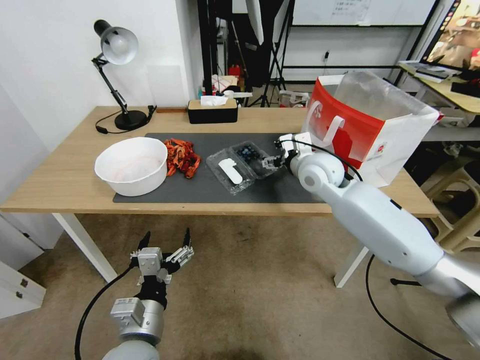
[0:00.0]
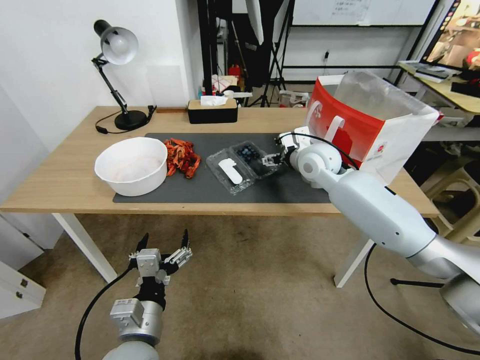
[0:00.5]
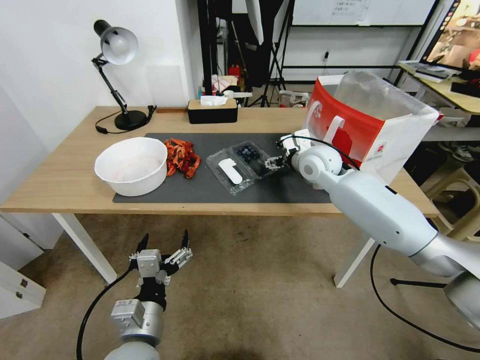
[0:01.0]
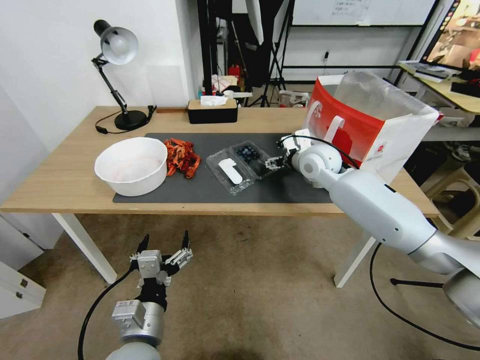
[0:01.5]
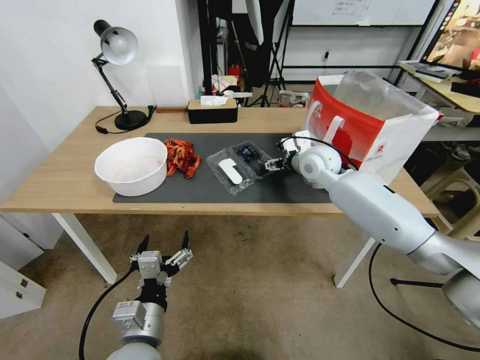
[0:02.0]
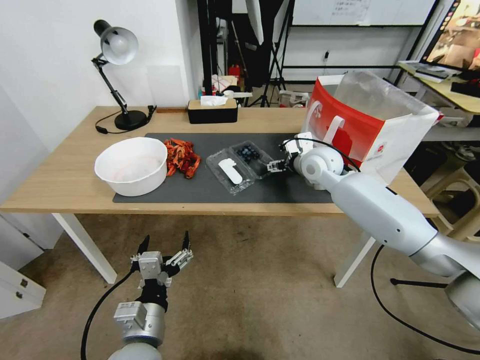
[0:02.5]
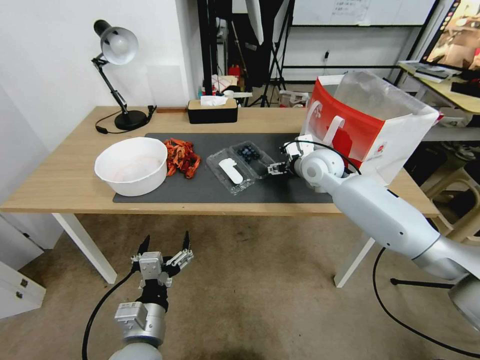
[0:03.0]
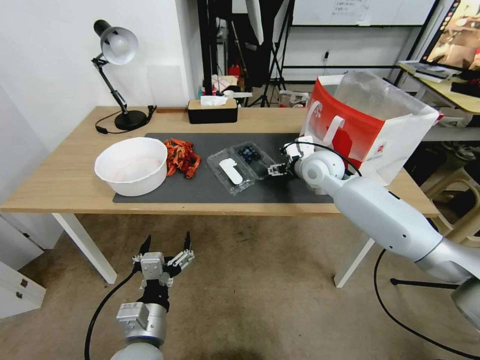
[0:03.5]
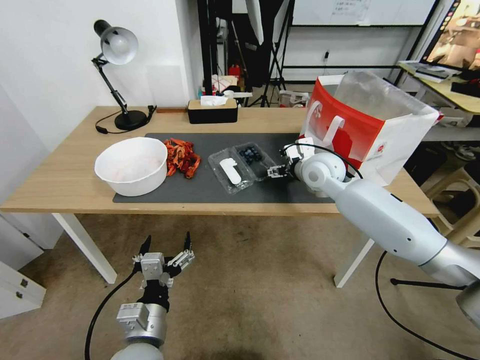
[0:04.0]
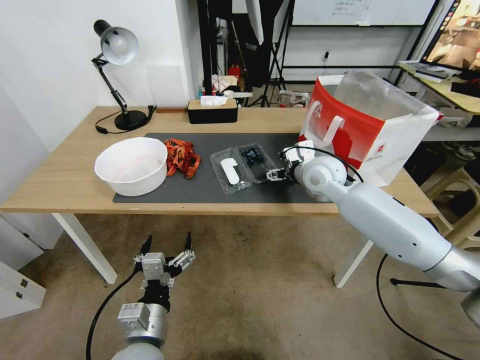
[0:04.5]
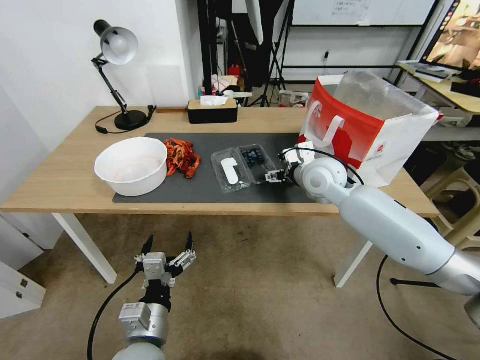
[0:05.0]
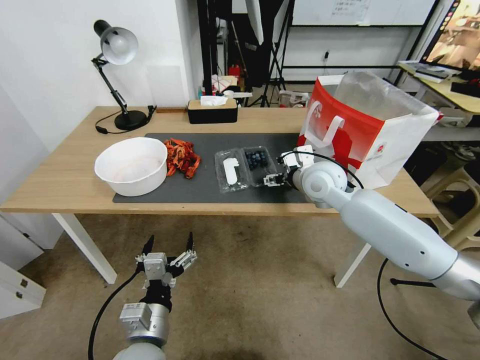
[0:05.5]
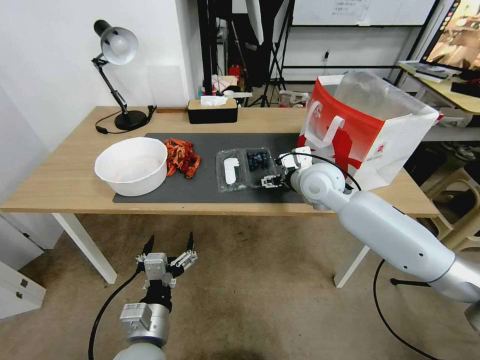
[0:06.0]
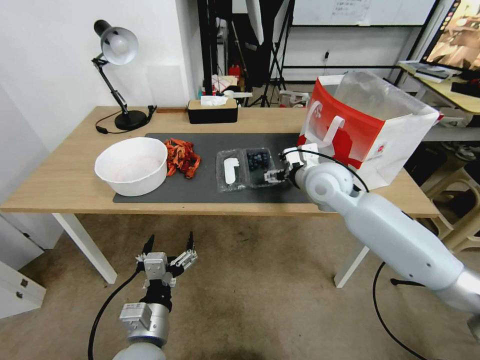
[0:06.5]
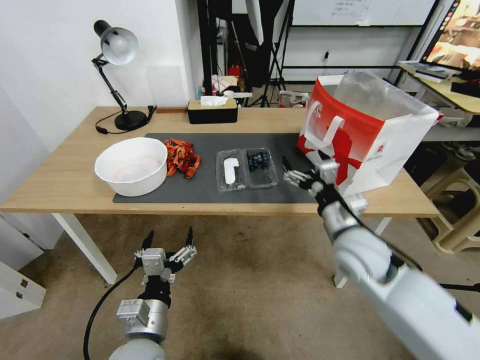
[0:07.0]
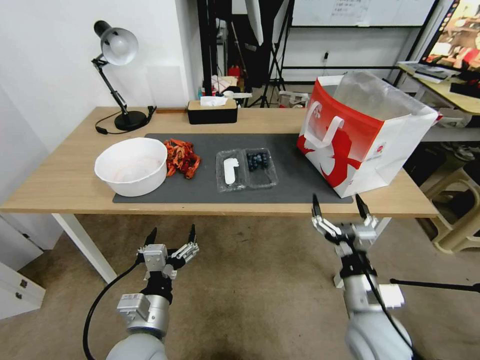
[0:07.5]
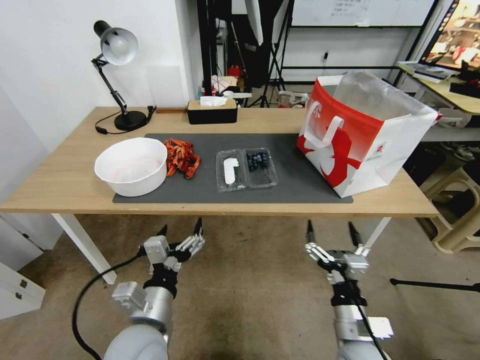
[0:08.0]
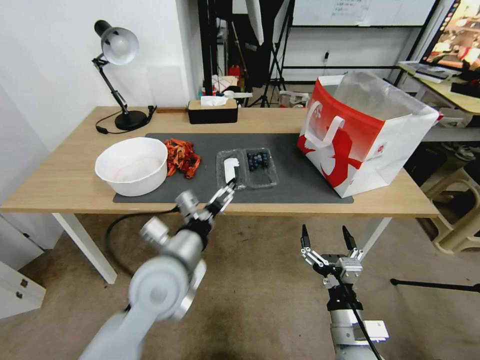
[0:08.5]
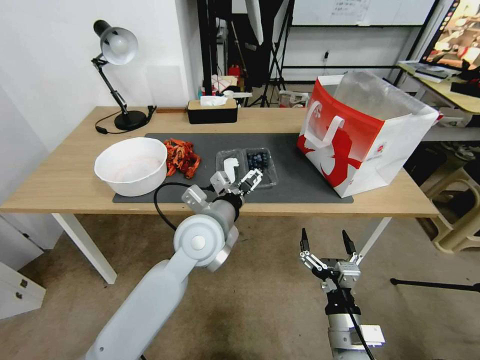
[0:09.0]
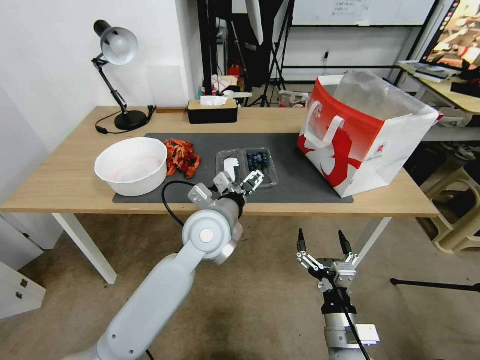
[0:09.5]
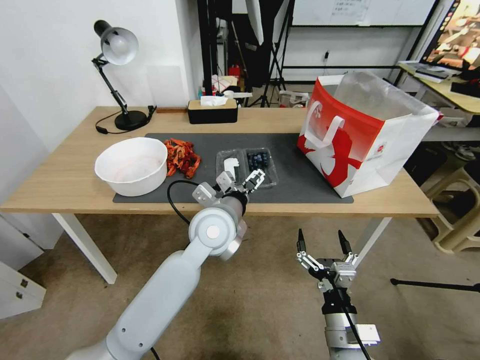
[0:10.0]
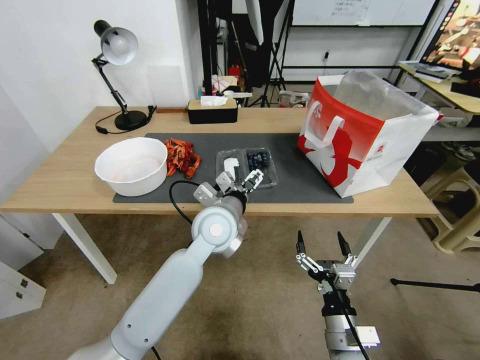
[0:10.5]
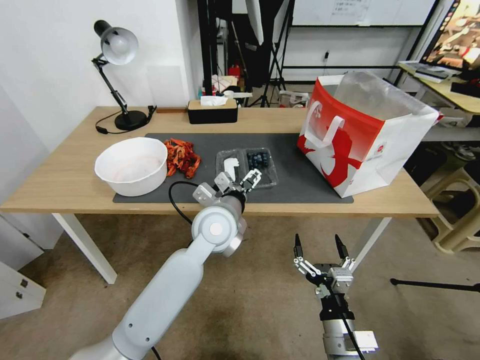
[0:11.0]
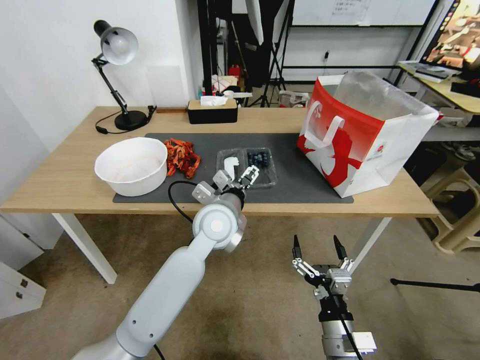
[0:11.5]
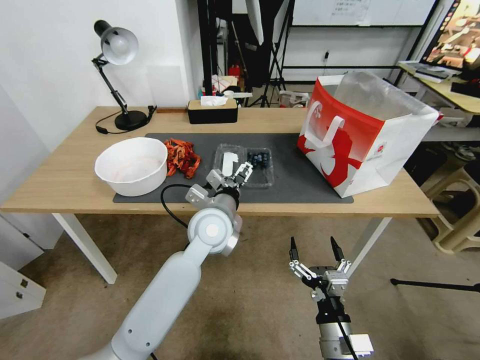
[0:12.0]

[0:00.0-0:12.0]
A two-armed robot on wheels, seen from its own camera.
Task of the whole recording: Close the takeout container lid, then place the container into the takeout bag.
0:00.0 to 0:02.0: The right gripper moves forward, some 5 cm.
0:02.0 to 0:04.0: The grippers move only a little.
0:04.0 to 0:06.0: There are only small adjustments of the grippers.
0:06.0 to 0:08.0: The right gripper is displaced backward and downward by about 35 cm.
0:08.0 to 0:10.0: The left gripper is displaced forward, to the right and upward by some 25 cm.
0:10.0 to 0:12.0: The grippers stay close to where they were, moving slightly.

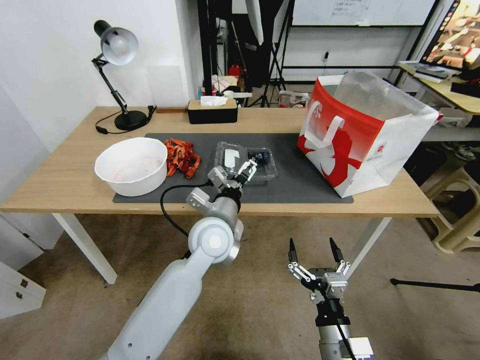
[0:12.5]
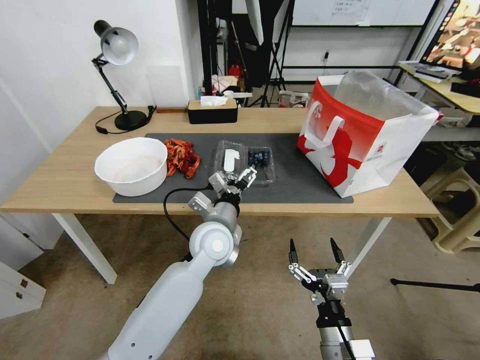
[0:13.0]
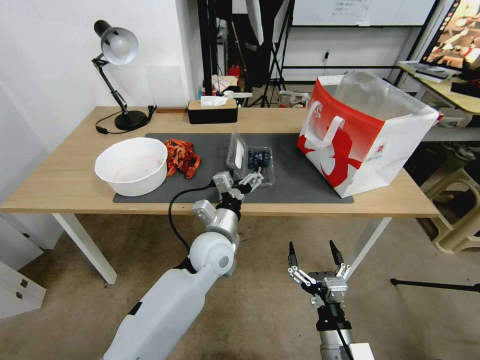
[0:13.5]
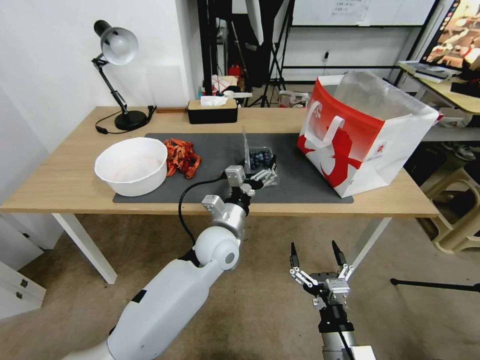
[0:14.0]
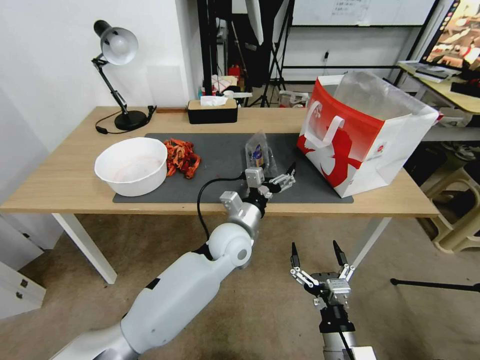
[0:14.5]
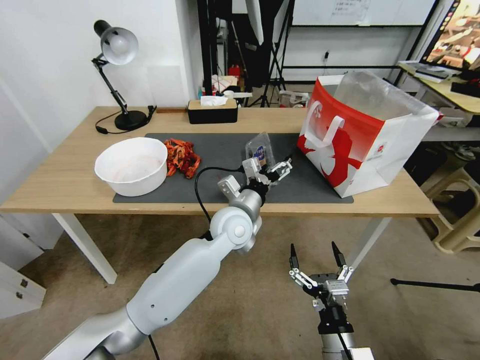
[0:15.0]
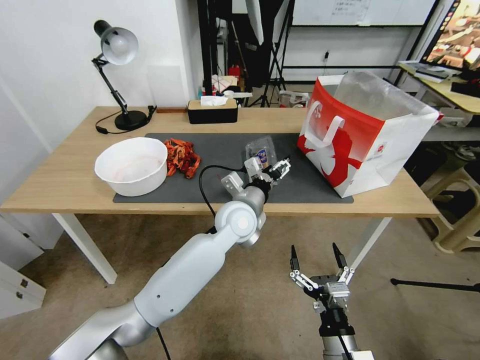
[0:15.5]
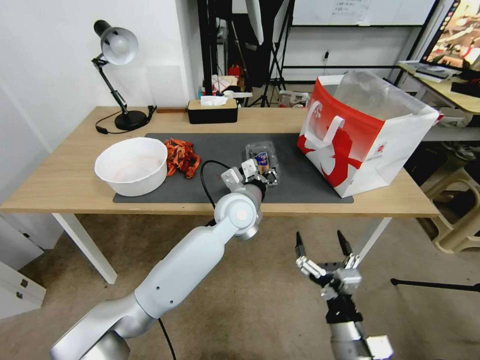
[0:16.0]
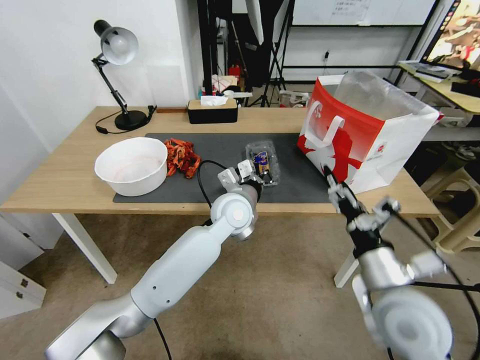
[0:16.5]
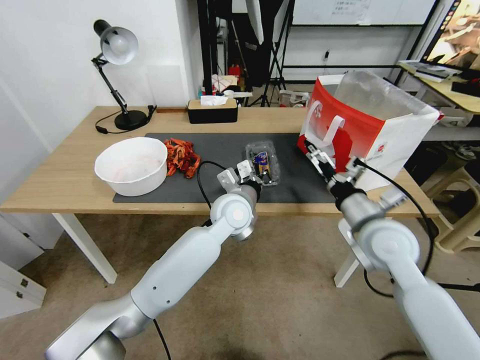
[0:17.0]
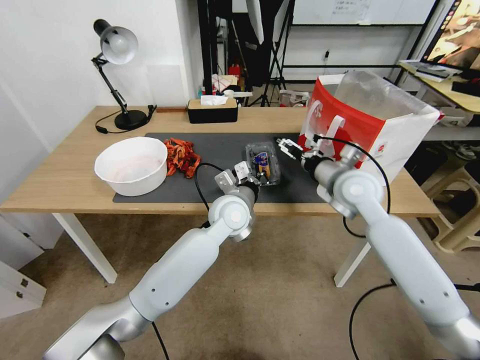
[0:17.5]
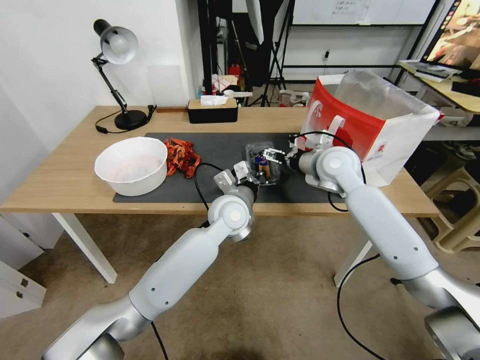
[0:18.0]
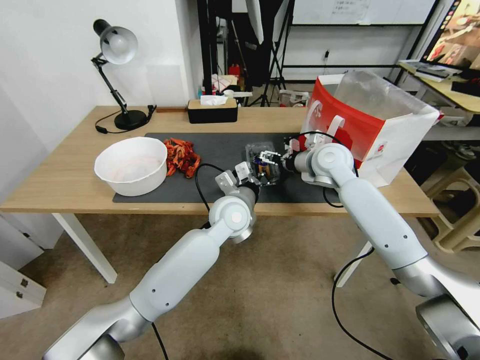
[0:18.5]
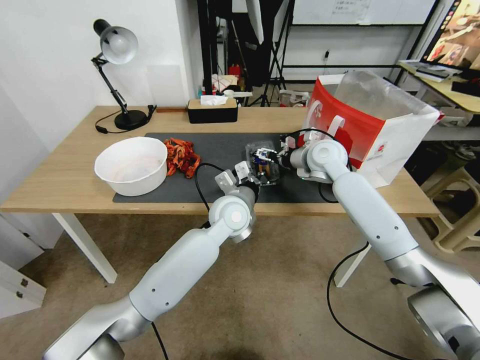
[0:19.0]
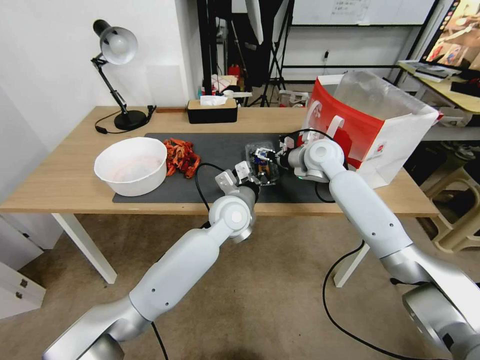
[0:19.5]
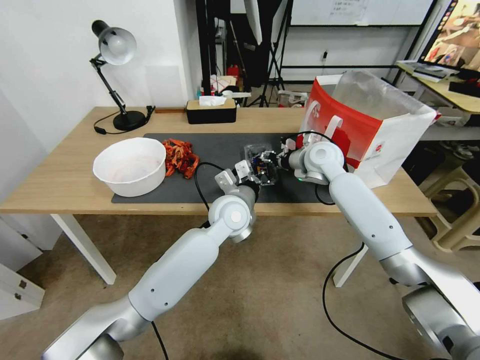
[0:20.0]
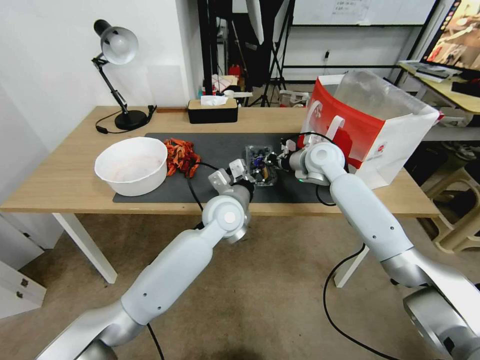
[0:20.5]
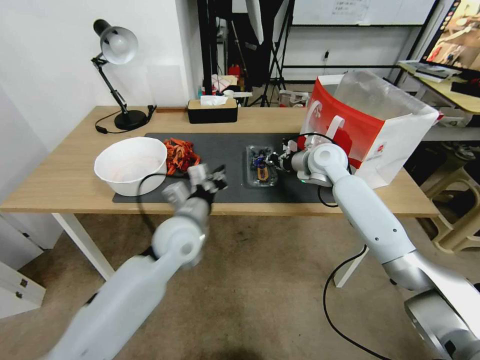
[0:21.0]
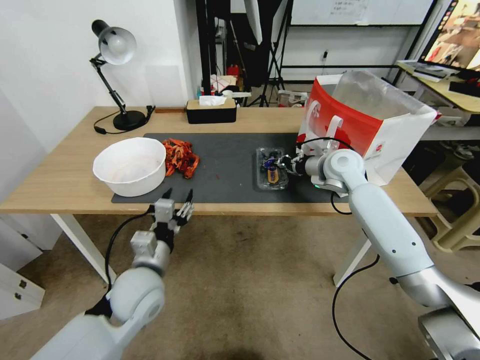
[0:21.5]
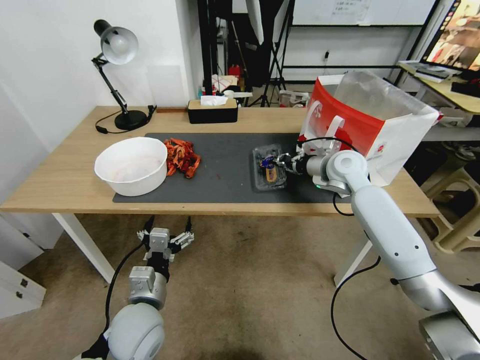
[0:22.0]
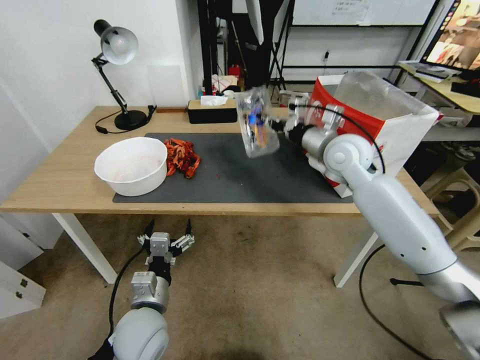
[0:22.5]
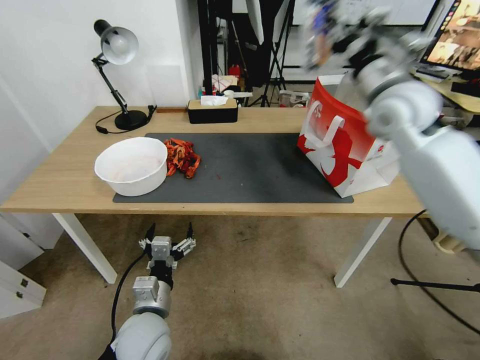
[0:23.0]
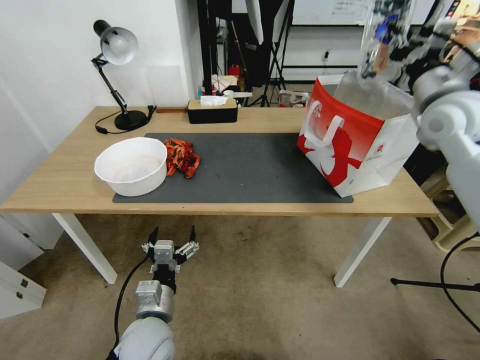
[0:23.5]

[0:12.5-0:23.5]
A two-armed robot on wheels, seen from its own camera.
Task of the whole recording: Close the takeout container lid, then place the container into the takeout bag.
0:12.5 to 0:14.5: The left gripper shifts by approximately 5 cm.
0:14.5 to 0:16.0: The left gripper goes roughly 5 cm upward and forward, and closes.
0:16.0 to 0:18.0: The right gripper heads forward and upward, covering approximately 40 cm.
0:18.0 to 0:20.0: The right gripper ends up roughly 5 cm from where it was, and closes.
0:20.0 to 0:21.5: The left gripper goes approximately 25 cm to the left and backward, and opens; the right gripper changes place by roughly 5 cm, and closes up.
0:21.5 to 0:23.5: The right gripper shifts approximately 25 cm upward and to the right. Meanwhile the left gripper travels backward and downward by roughly 10 cm, and opens its fingers.

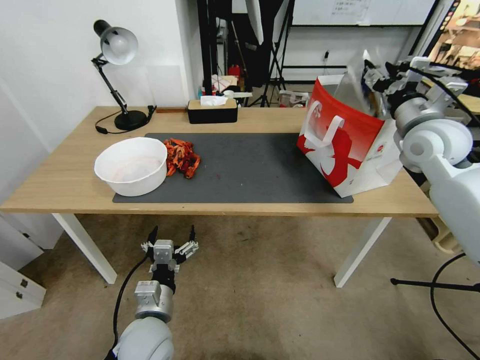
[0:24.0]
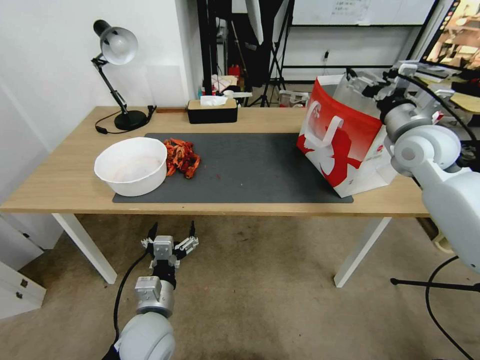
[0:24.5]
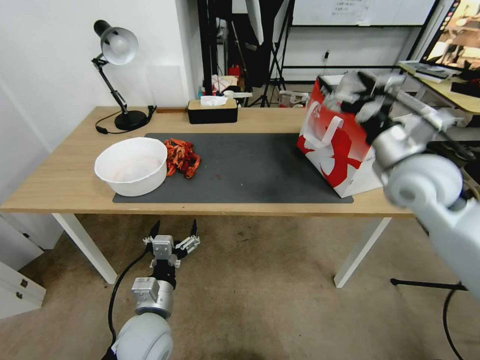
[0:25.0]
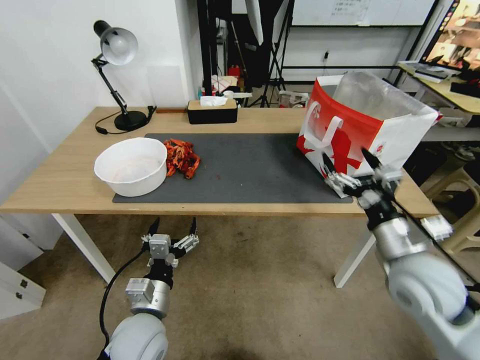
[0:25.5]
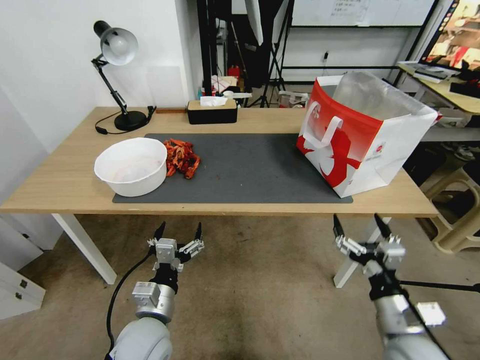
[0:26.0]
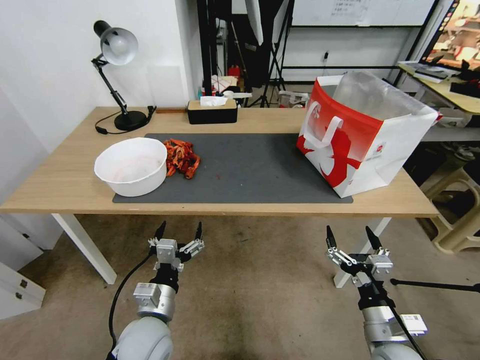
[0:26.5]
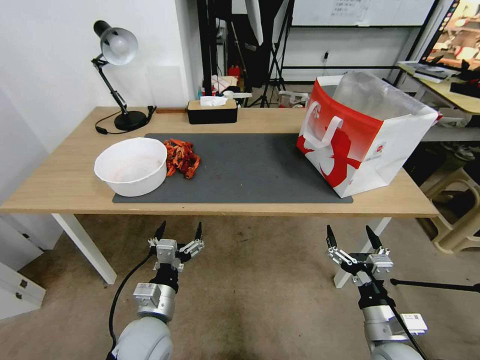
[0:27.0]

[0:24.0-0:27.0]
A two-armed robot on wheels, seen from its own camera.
Task of the whole recording: Close the takeout container lid, then place the container into the takeout bag.
0:24.0 to 0:25.5: The right gripper heads backward, downward and to the left, covering about 20 cm, and opens its fingers.
0:25.5 to 0:27.0: The right gripper moves downward and backward, about 25 cm.
